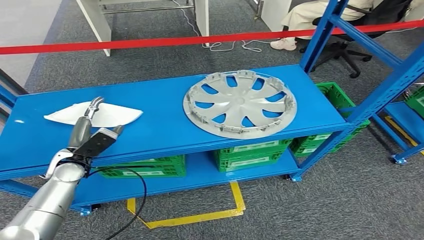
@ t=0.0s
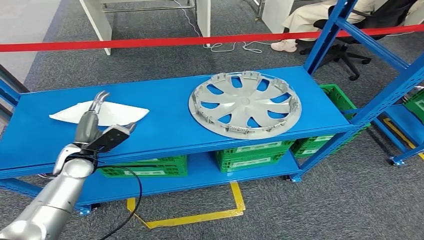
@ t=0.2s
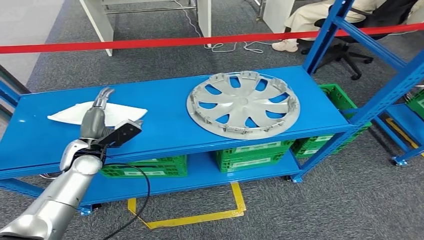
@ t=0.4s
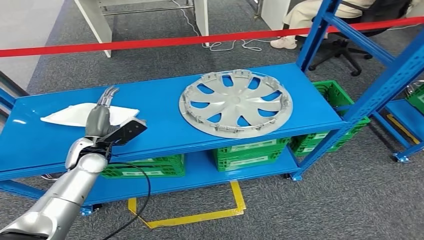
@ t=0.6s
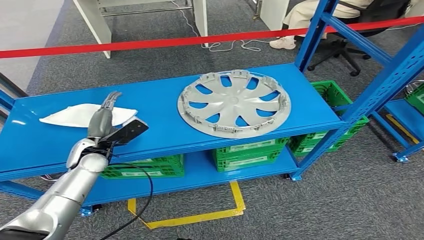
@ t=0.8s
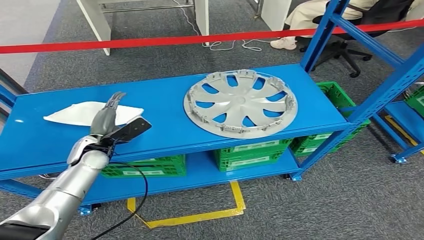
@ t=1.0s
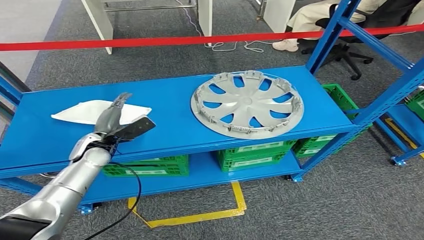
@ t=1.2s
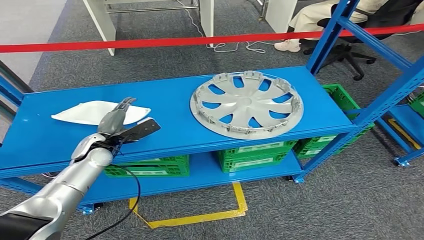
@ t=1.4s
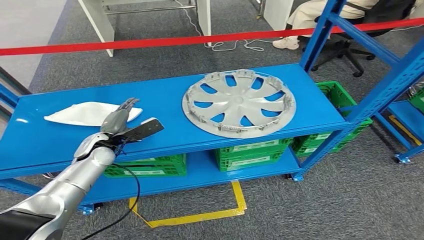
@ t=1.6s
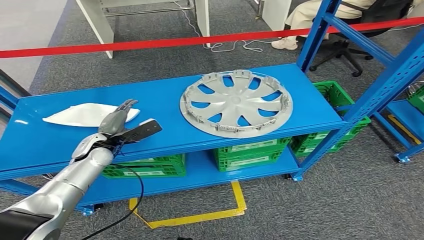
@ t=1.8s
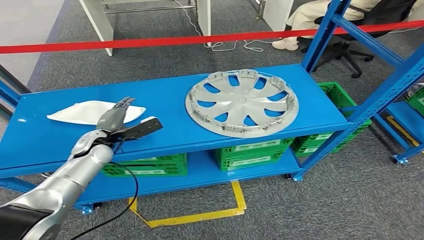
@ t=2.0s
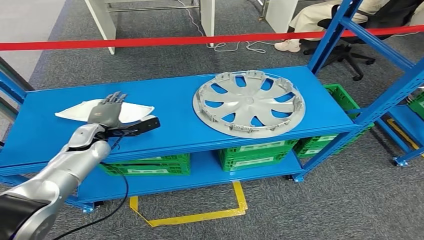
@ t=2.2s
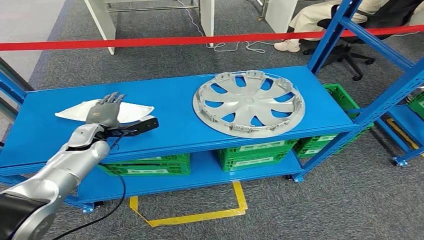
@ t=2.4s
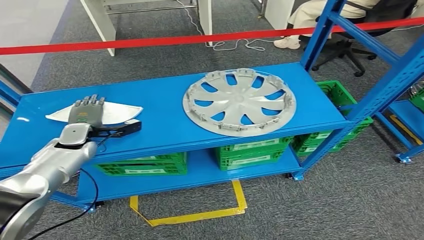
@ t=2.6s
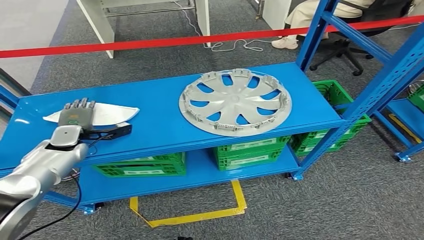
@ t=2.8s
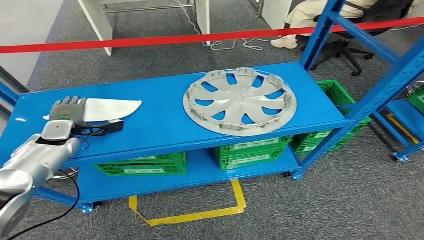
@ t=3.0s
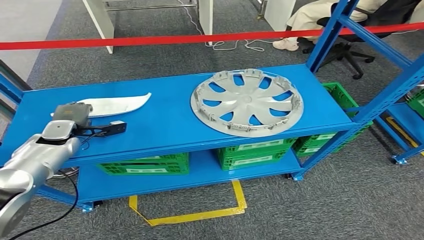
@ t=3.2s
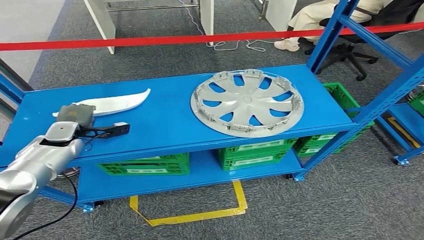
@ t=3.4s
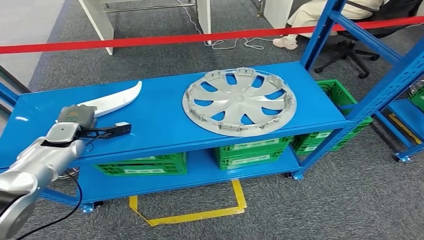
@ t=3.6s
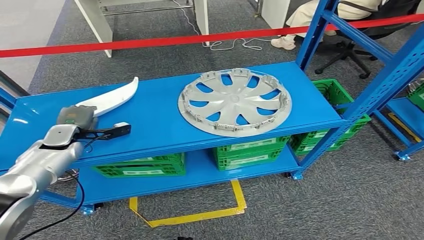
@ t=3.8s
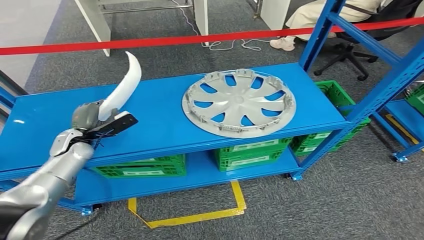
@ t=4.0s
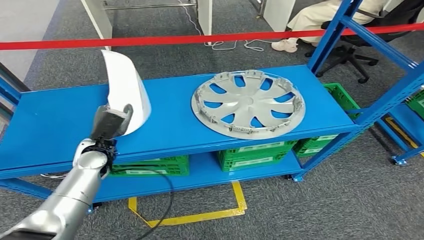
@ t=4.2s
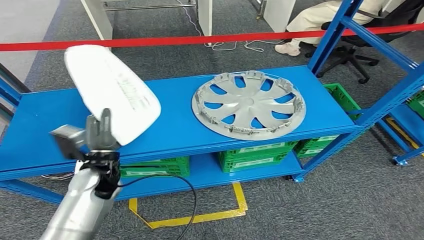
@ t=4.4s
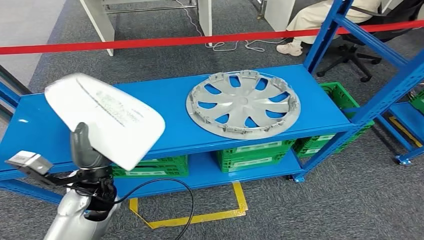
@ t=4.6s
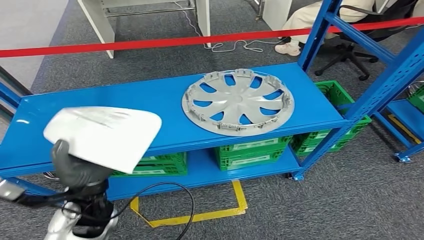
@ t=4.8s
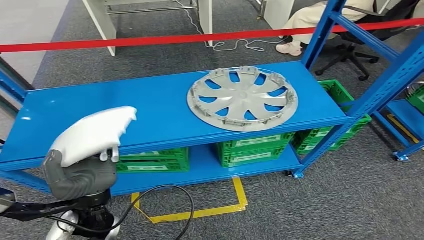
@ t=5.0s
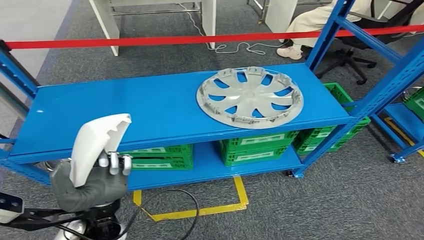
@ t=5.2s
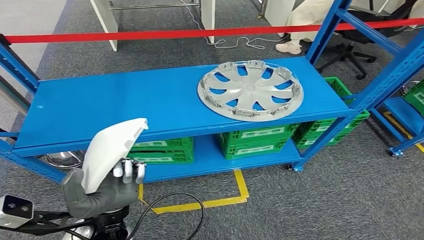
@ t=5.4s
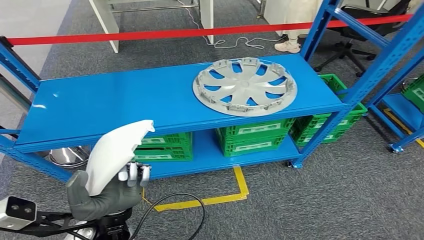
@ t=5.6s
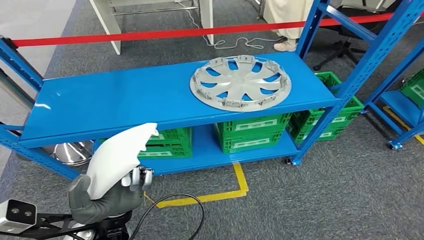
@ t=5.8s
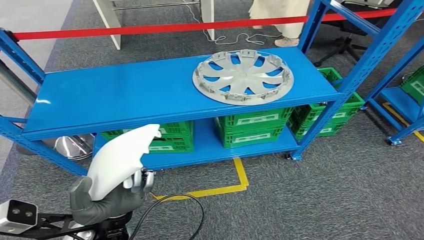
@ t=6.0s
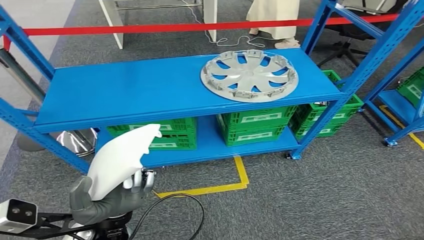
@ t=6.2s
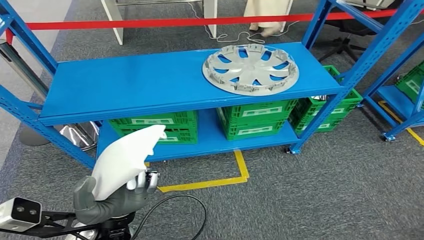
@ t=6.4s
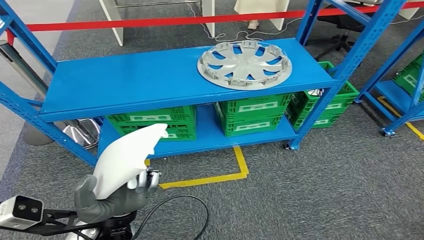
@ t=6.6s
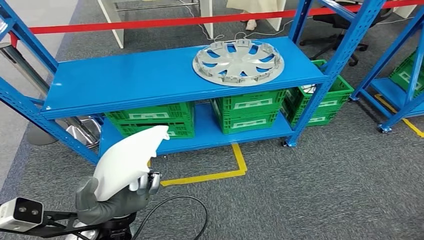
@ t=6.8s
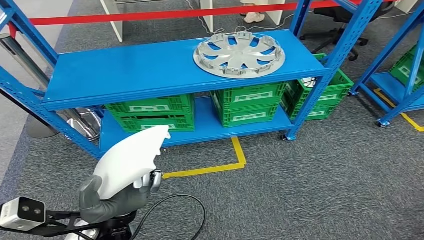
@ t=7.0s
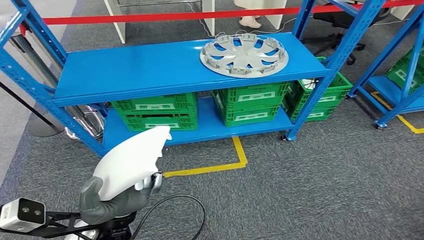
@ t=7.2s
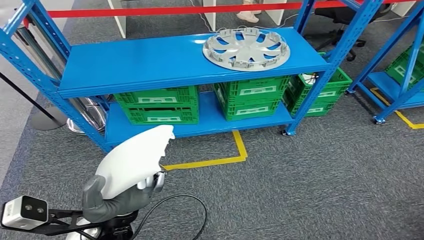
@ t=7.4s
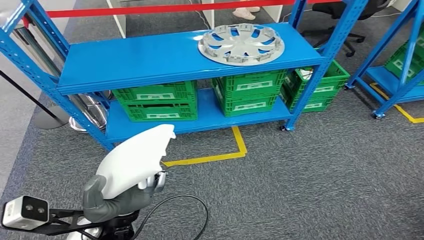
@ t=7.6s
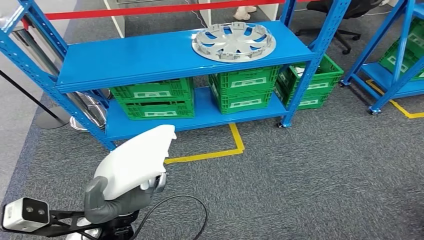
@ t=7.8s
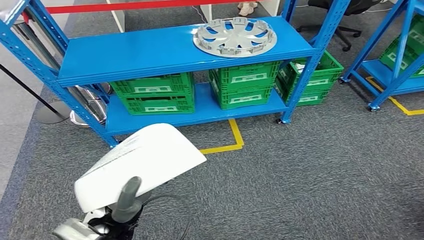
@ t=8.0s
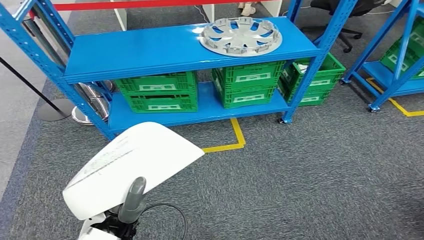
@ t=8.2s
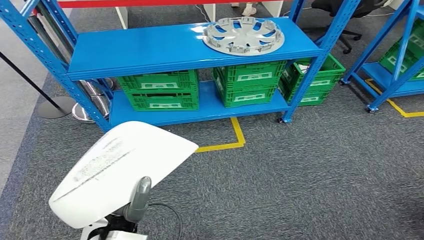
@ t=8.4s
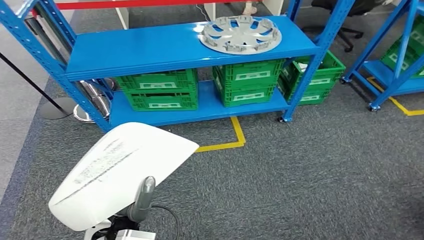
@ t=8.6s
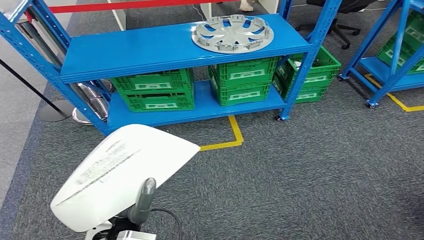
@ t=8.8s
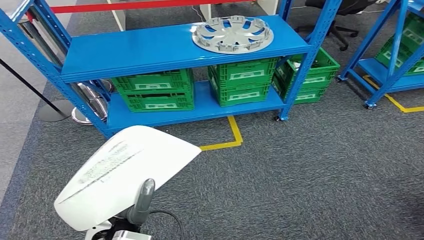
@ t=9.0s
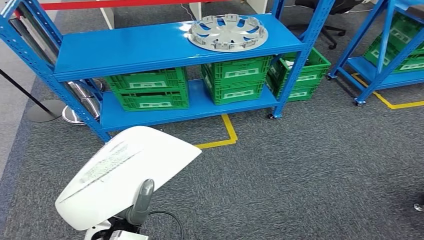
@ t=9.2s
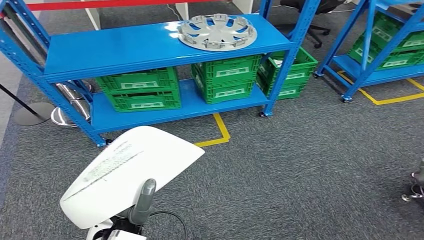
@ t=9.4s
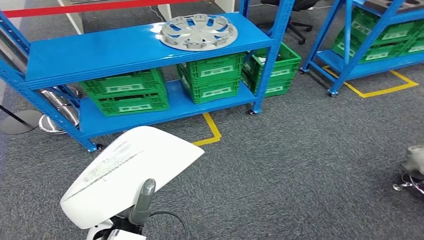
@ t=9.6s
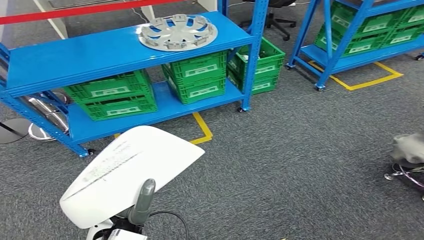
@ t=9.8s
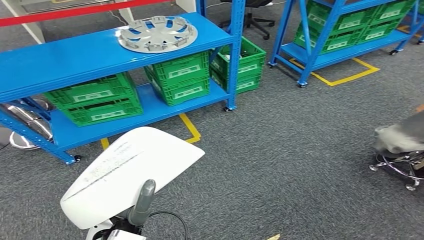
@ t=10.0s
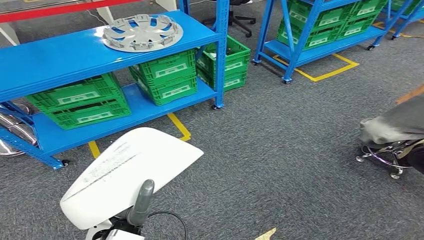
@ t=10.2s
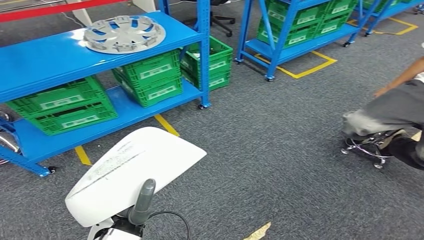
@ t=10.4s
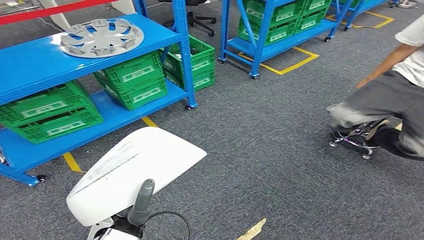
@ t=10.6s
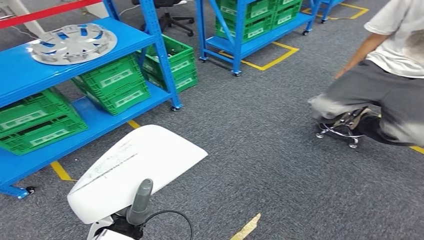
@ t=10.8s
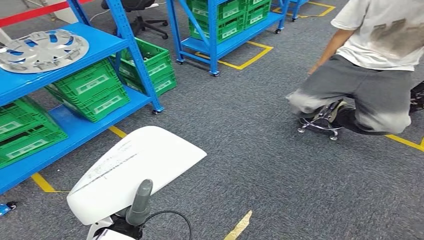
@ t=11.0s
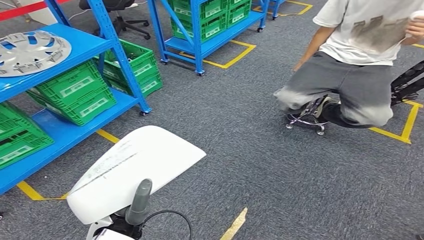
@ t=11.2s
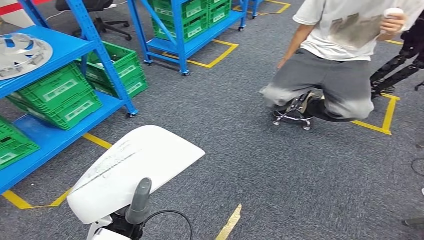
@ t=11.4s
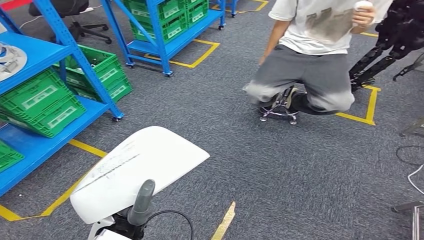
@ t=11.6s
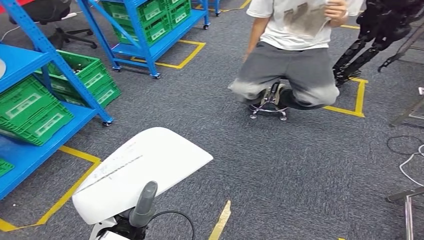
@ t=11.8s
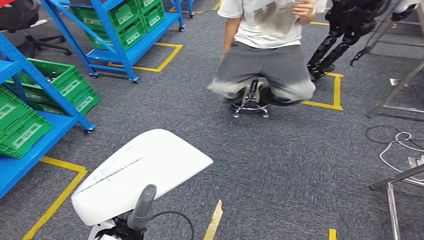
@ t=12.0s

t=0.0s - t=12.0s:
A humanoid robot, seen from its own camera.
Step, t=0.0s - t=4.8s: Pick up the small component from the shelf.
t=0.0s - t=1.6s: The left hand shifts about 5 cm forward.
t=1.6s - t=3.0s: The left hand is displaced to the left by roughly 10 cm.

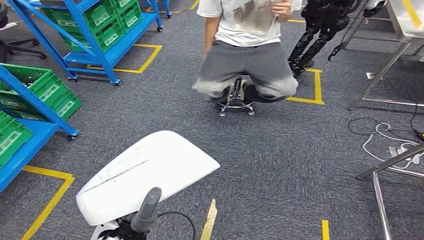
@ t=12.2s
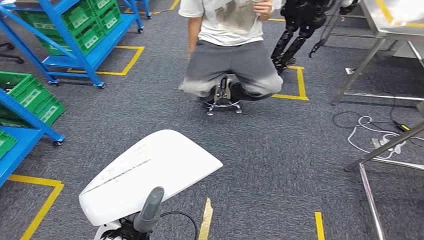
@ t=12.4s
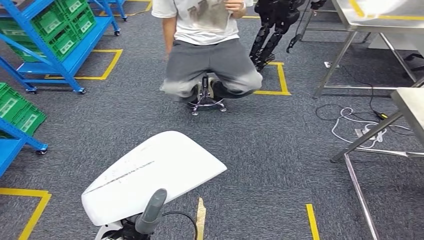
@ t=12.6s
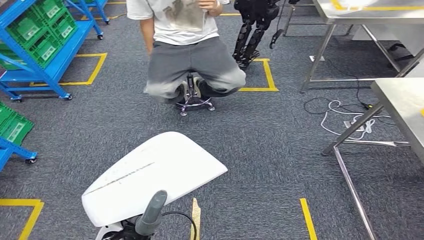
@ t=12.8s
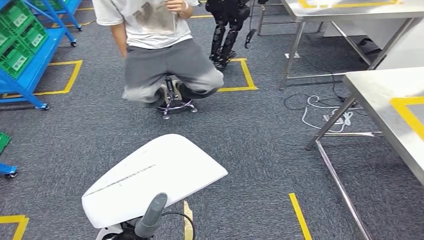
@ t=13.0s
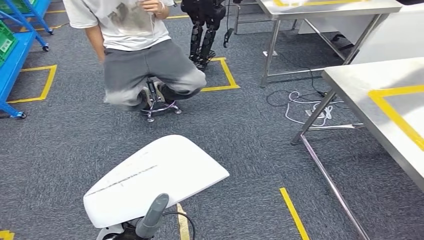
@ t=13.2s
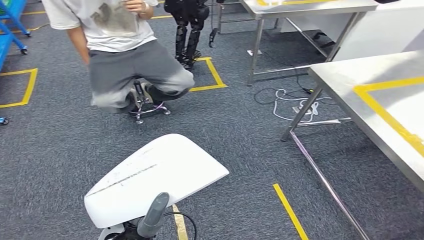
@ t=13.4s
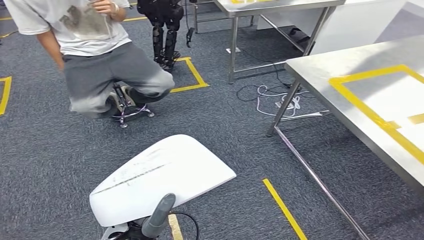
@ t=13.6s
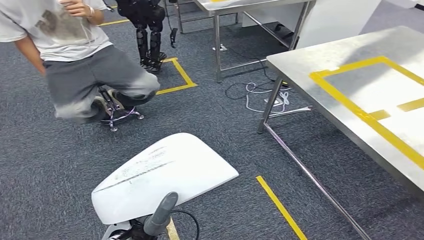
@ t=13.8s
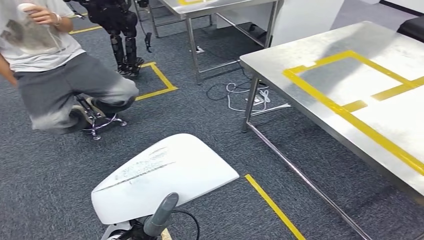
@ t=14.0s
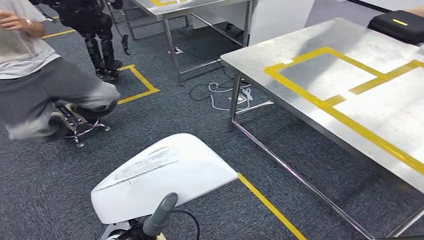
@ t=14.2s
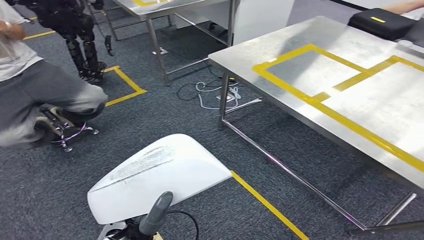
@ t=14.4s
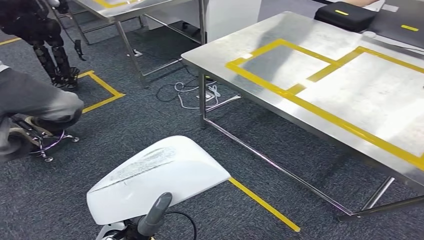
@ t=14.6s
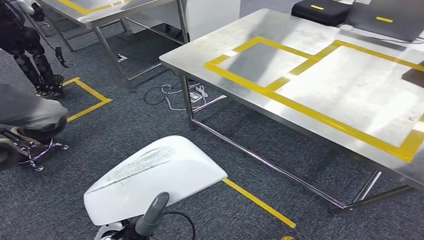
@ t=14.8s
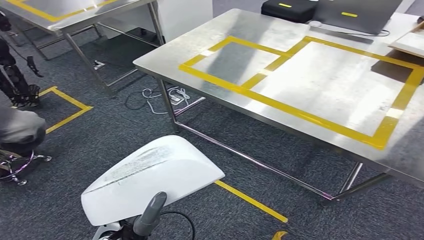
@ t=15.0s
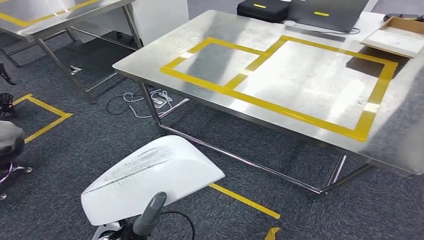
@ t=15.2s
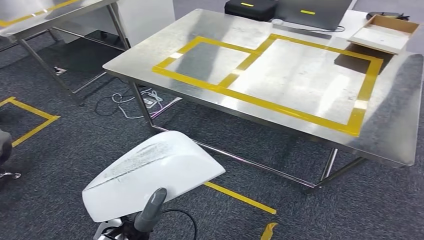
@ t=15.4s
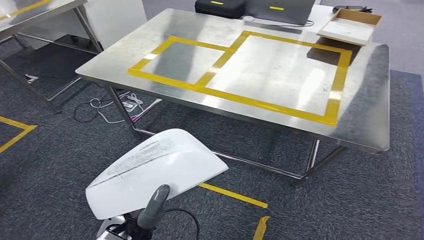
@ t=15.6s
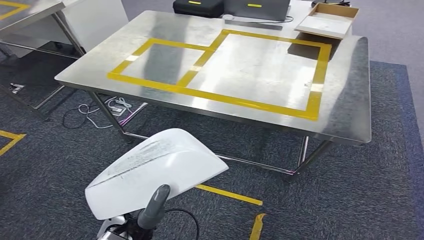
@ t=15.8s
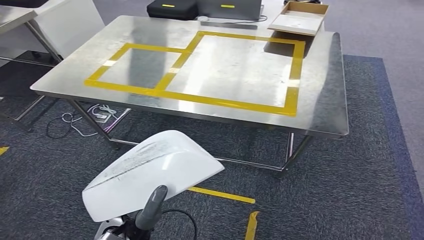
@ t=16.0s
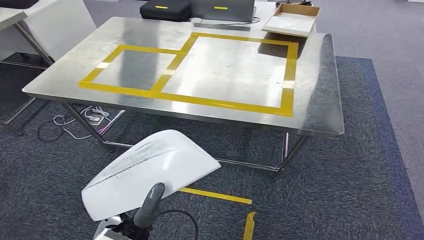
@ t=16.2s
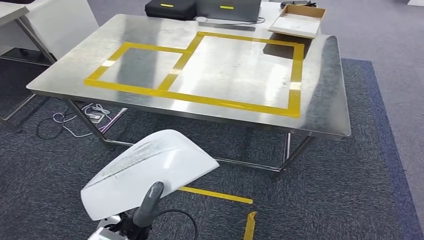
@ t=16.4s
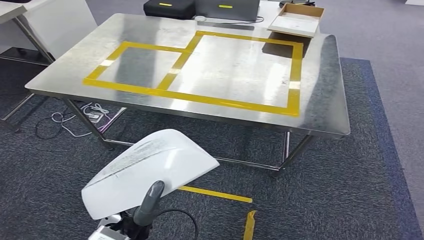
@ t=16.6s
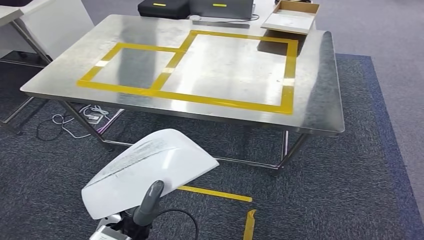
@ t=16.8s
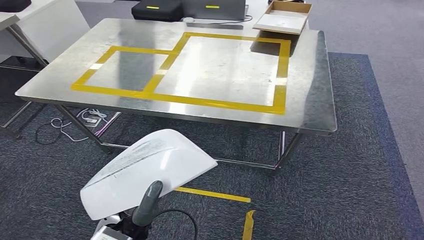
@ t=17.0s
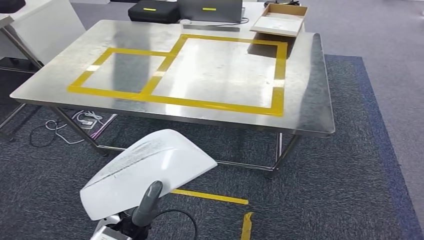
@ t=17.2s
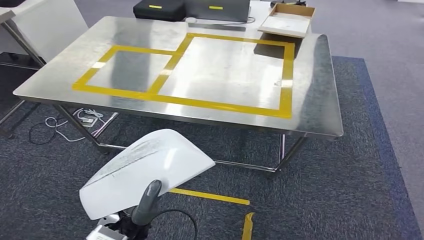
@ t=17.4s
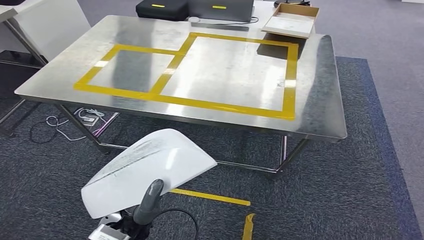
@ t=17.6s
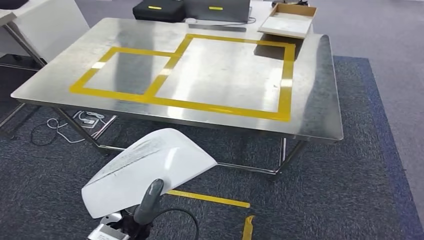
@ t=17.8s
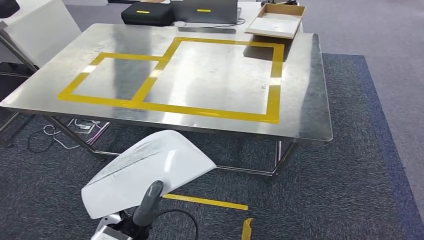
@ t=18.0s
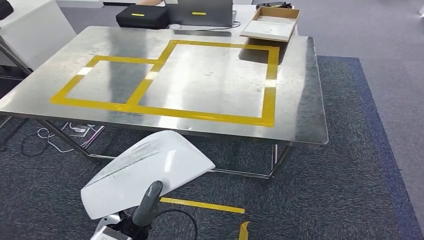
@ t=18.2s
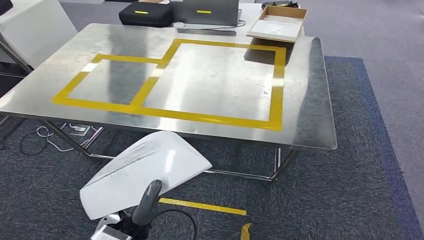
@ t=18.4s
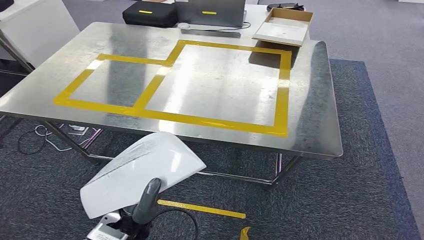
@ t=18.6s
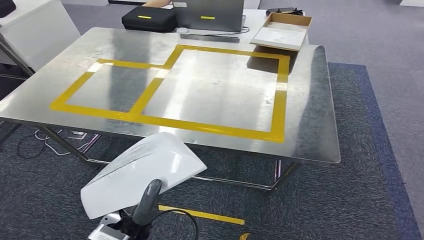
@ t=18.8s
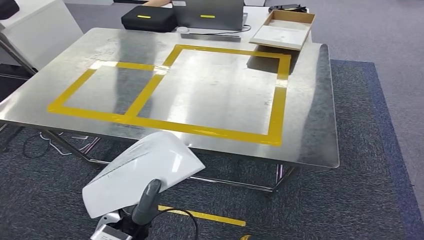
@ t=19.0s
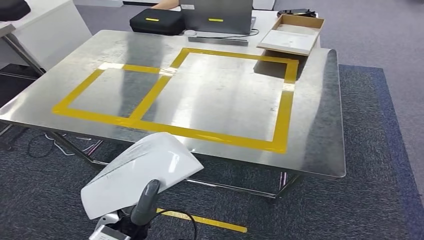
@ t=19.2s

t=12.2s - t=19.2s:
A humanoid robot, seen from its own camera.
Step, t=12.2s - t=18.0s: Bring the small component to the front of the workbench.
